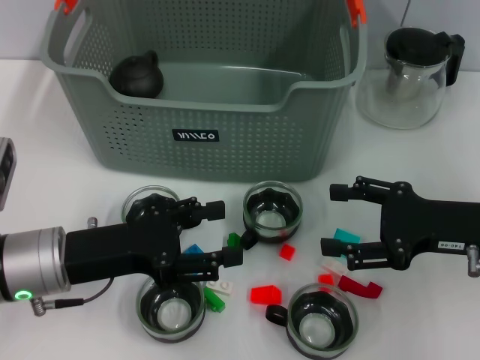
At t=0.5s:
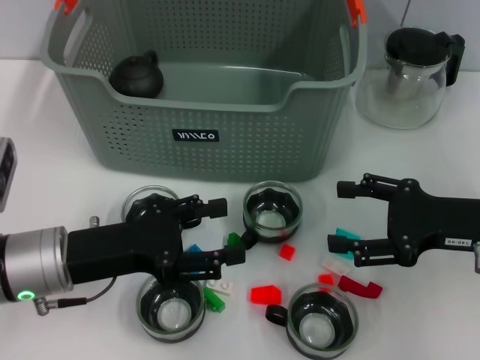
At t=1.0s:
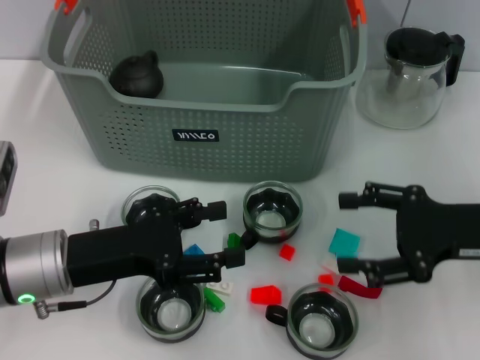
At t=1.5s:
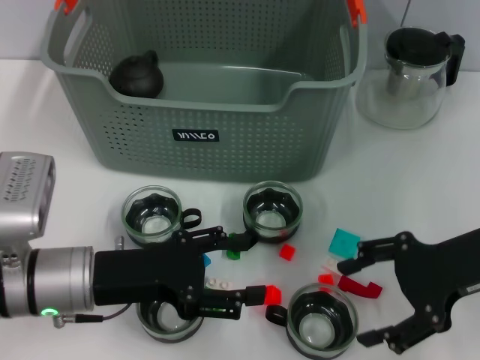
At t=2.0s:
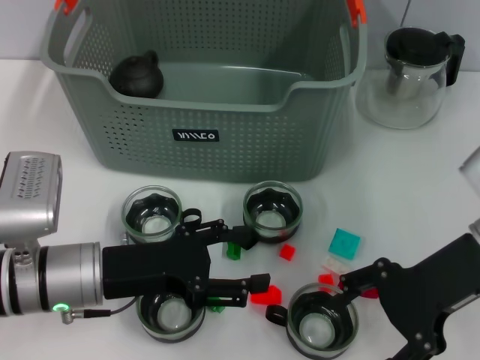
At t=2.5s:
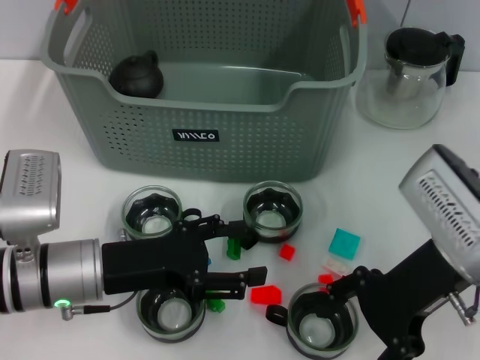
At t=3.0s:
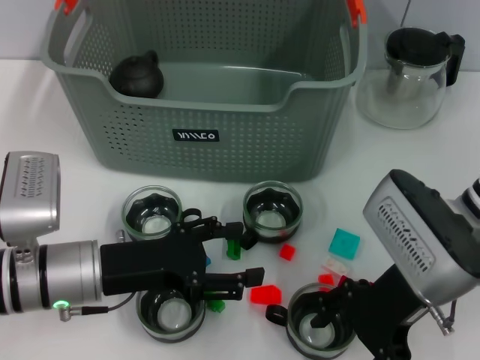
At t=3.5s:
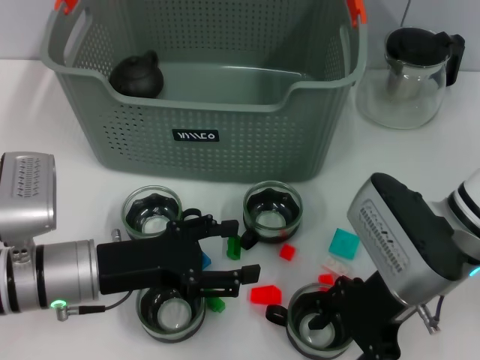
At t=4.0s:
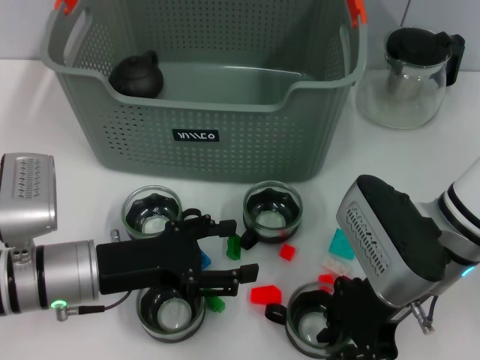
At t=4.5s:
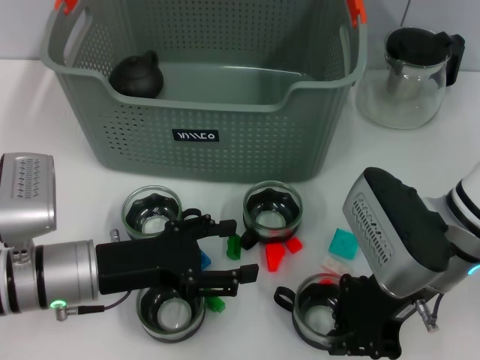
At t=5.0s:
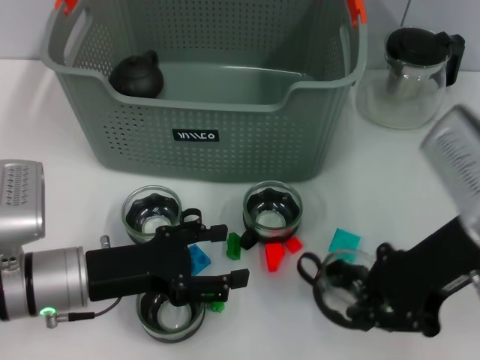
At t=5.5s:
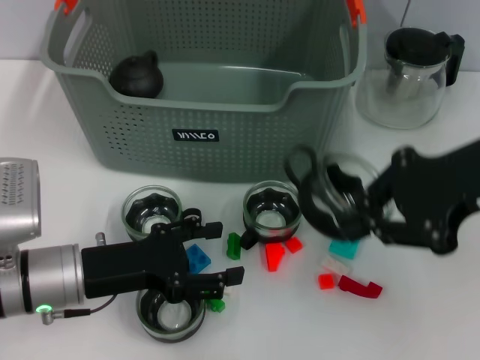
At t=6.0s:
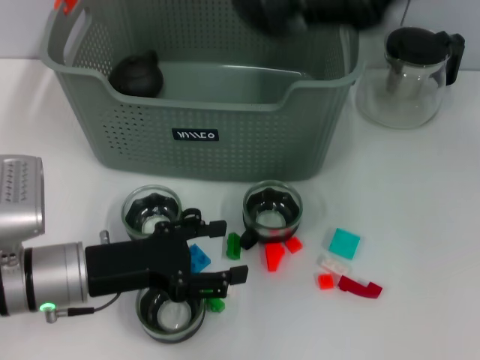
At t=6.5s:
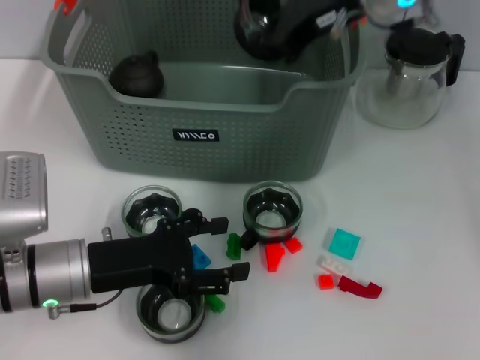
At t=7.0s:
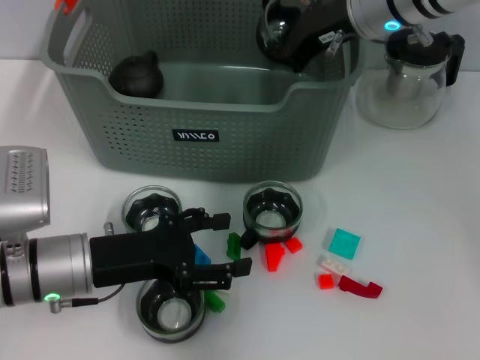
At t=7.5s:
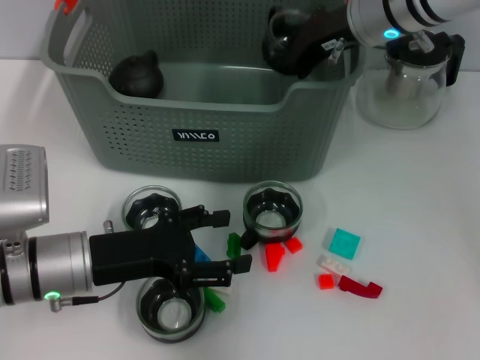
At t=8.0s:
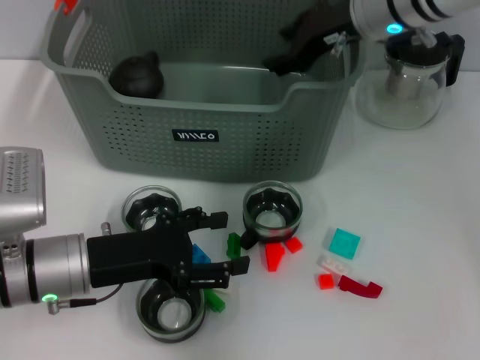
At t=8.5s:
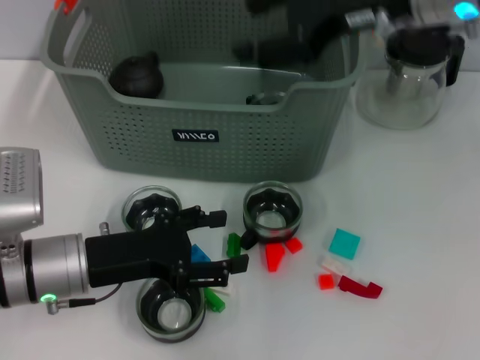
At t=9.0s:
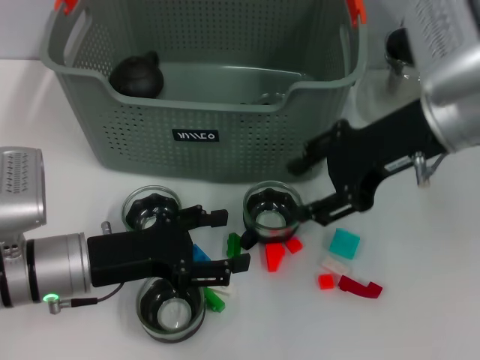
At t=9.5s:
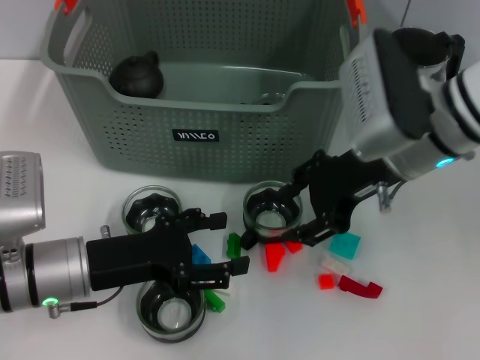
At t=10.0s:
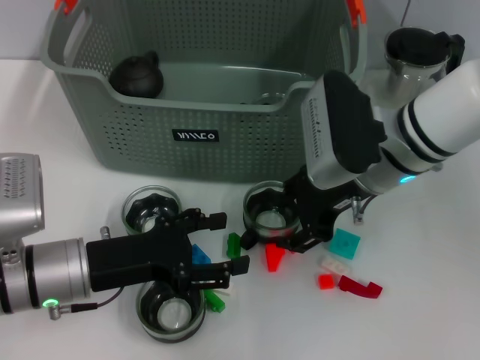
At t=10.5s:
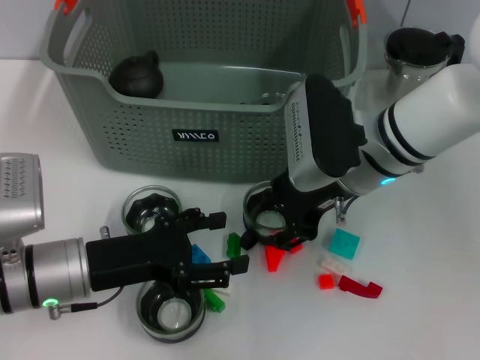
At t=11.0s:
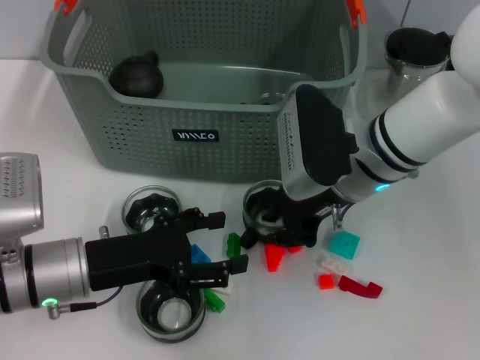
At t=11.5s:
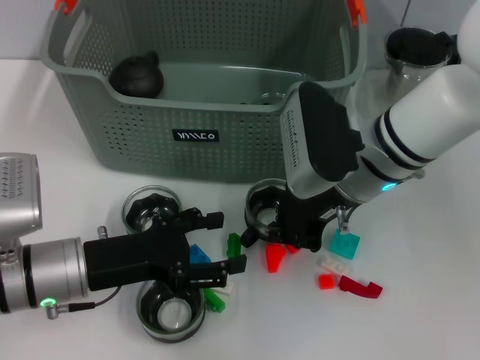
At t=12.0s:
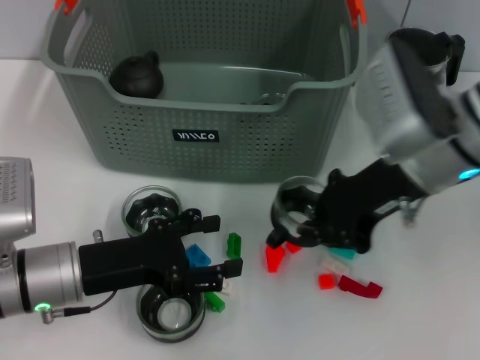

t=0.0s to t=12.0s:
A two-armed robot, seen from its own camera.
Task of the whole recording: pick up the teacup on the table and place it into the storage bin, pick up the block on the table and place it into the storage bin.
Step, t=0.0s to t=4.0s: Grasp the cup with right gripper.
Step, t=4.5s to t=7.5s: Place the cup in the storage box with right gripper.
Step, t=8.0s to t=11.0s: Grasp the cup with right gripper.
t=0.0s to t=2.0s: The right gripper shifts roughly 5 cm upward.
t=2.0s to t=4.0s: The right gripper heads to the left, covering approximately 5 cm, and closes.
t=4.0s to t=6.0s: The right gripper is displaced upward by roughly 20 cm, and closes its fingers.
t=6.0s to t=8.0s: The right gripper heads downward and forward, covering some 15 cm, and opens up.
t=8.0s to t=10.0s: The right gripper is displaced backward and downward by roughly 10 cm.
t=10.0s to t=12.0s: The right gripper closes up.

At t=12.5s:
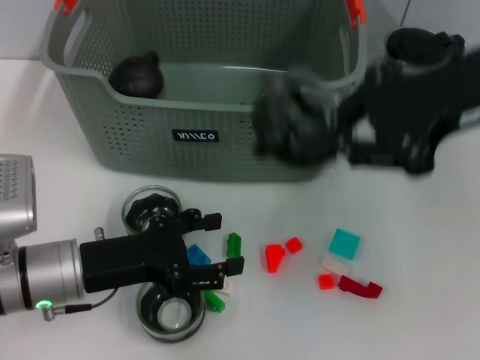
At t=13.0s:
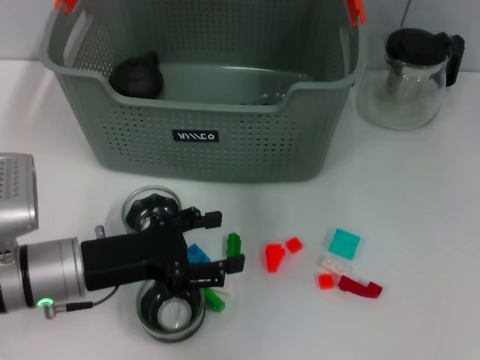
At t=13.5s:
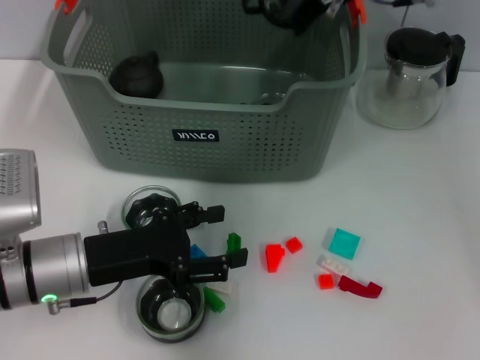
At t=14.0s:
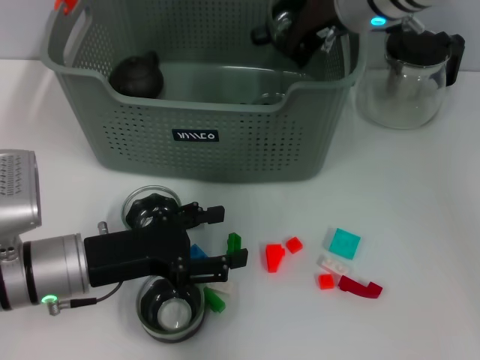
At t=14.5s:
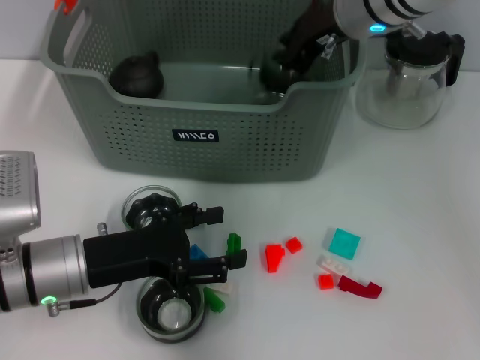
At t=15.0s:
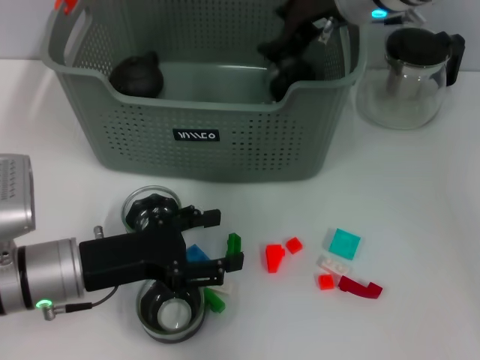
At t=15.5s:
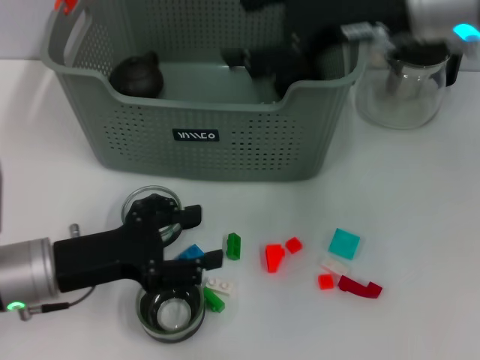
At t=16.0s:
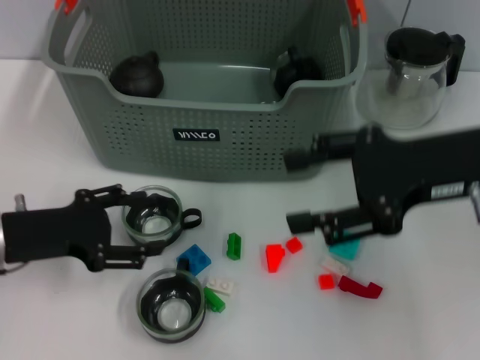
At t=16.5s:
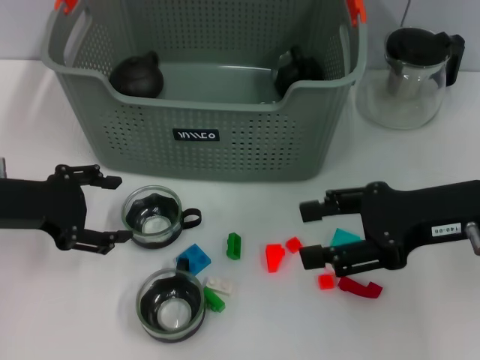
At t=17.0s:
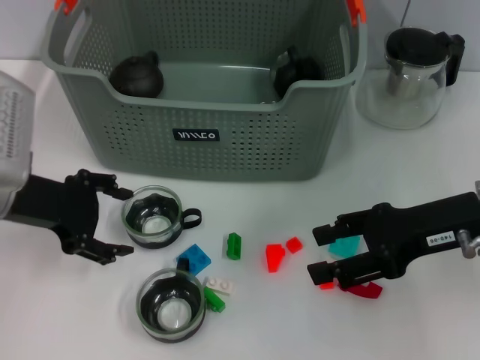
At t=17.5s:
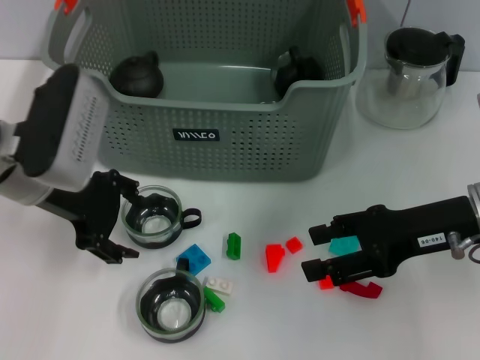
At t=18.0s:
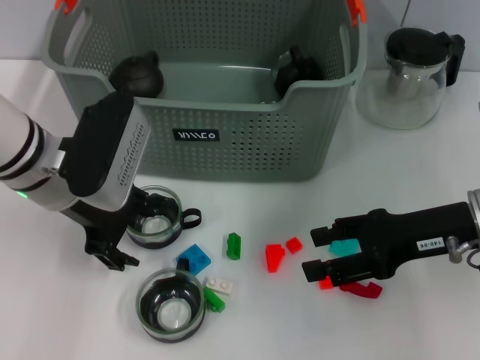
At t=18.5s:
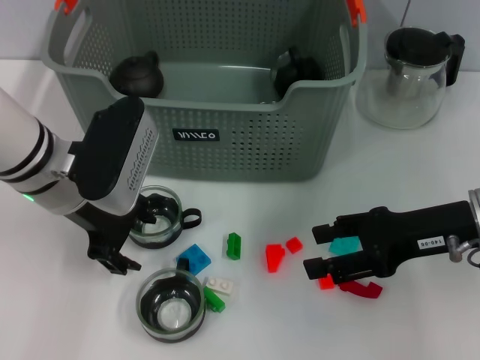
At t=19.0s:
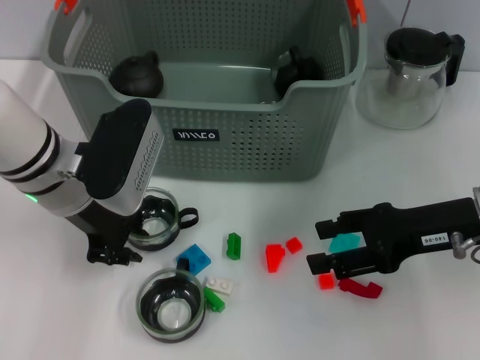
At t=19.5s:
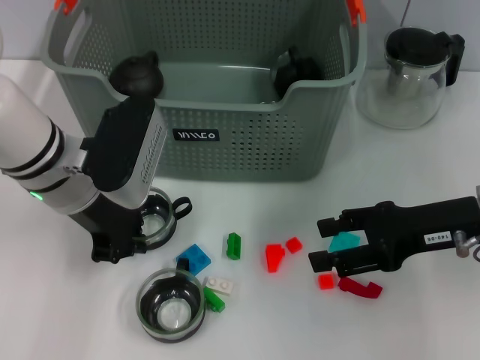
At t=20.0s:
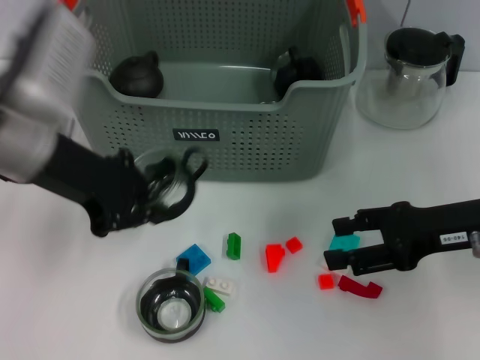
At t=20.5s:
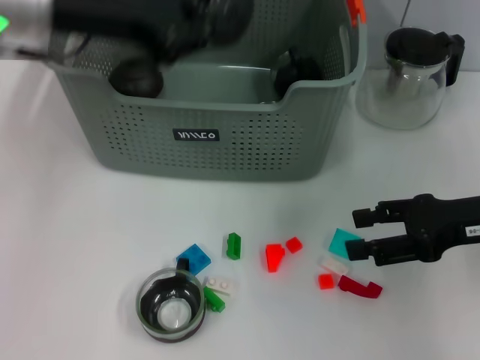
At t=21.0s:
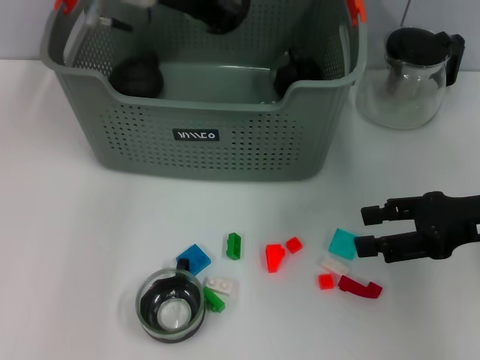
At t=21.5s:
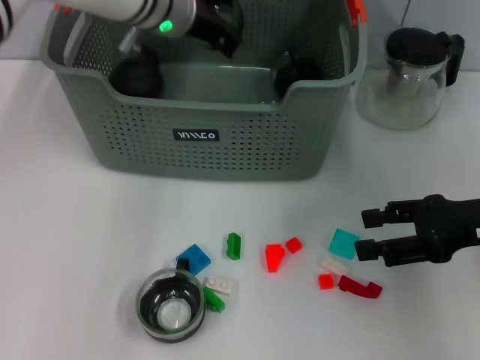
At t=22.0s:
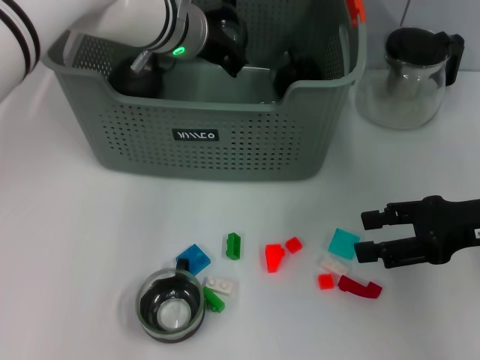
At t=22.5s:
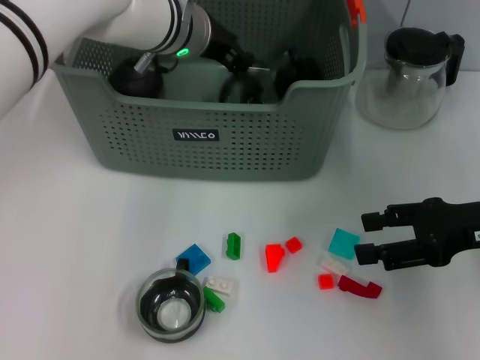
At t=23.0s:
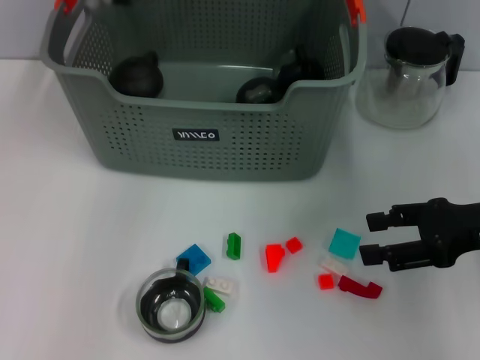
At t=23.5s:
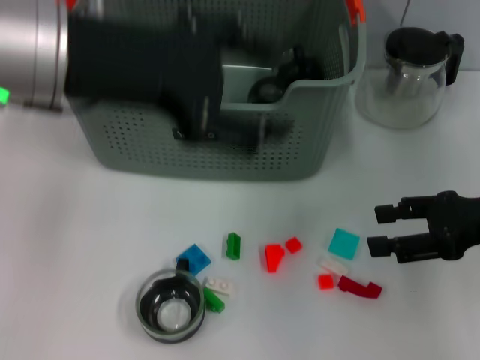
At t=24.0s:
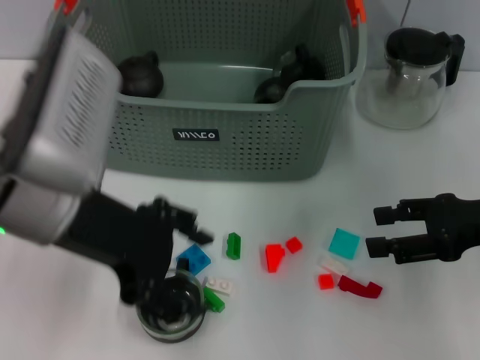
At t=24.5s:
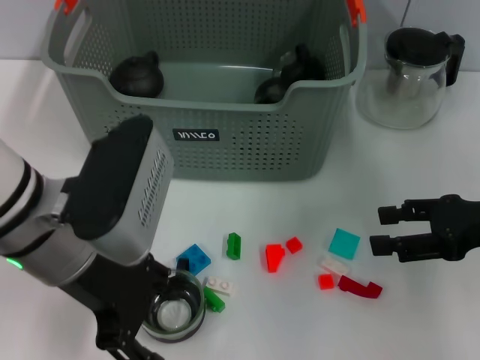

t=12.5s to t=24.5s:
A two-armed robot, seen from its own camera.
Task of the whole recording: pick up the teacup on the table and place it into the storage bin, pick up the block on the table and place it into the storage bin.
Step, t=12.5s to t=15.0s: Place the cup in the storage box with right gripper.
Step, t=15.5s to t=19.0s: Grasp the cup with left gripper.
Step, t=19.5s to t=22.5s: Place the cup in the storage box with left gripper.
t=12.5s to t=14.5s: The right gripper travels forward, to the left and downward by about 20 cm.
t=14.5s to t=16.5s: The left gripper moves to the left and upward, approximately 10 cm. The right gripper travels backward and to the right by roughly 20 cm, and opens up.
t=16.5s to t=18.5s: The left gripper is displaced to the right by about 10 cm.
t=18.5s to t=20.5s: The left gripper heads upward, covering some 15 cm, and closes up.
t=20.5s to t=22.5s: The left gripper goes roughly 20 cm to the right, downward and forward.
t=22.5s to t=24.5s: The left gripper goes some 20 cm backward, and opens.

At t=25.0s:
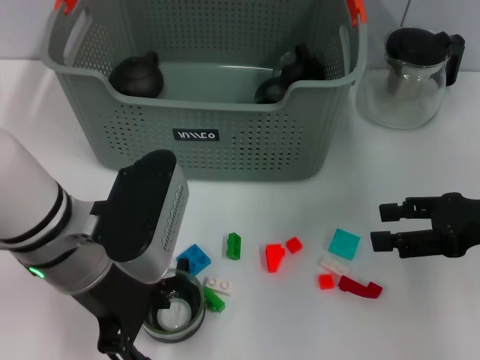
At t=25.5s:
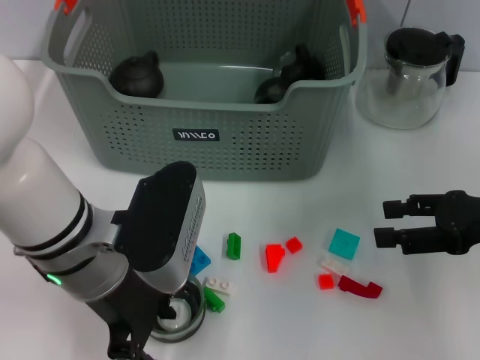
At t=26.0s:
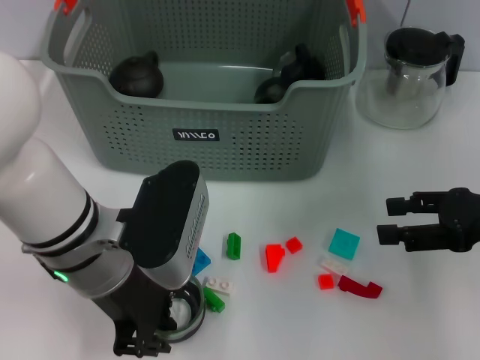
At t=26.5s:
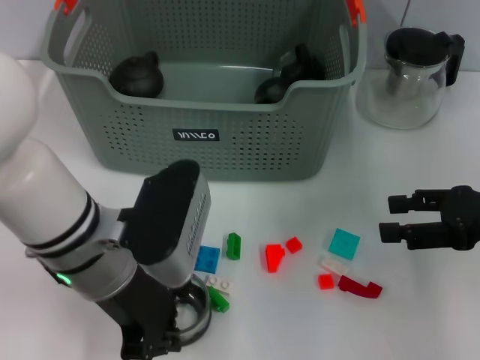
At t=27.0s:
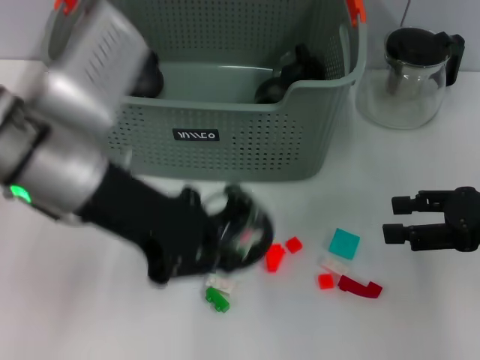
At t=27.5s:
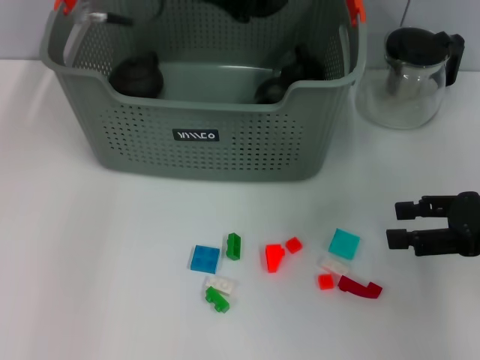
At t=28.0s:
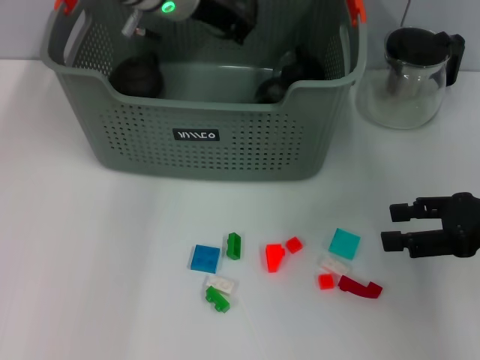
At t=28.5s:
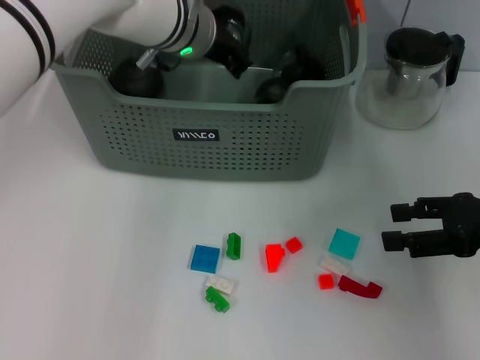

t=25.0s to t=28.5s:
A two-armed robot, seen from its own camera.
Task of the whole recording: pick up the teacup on the table and place it into the storage bin, pick up the block on the table and place it into the storage bin.
t=25.0s to t=27.0s: The left gripper heads upward, covering some 5 cm, and closes up.
t=27.0s to t=28.5s: The left gripper shifts roughly 20 cm forward and to the right.
